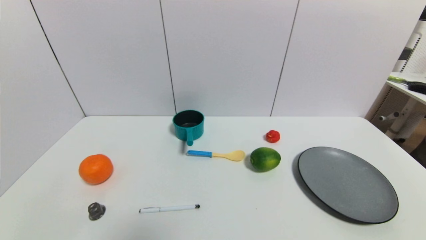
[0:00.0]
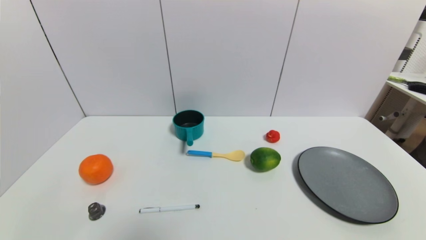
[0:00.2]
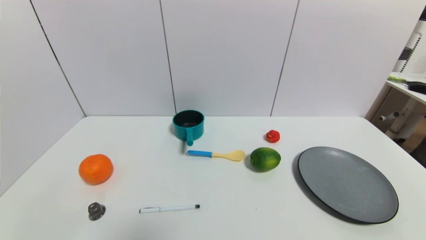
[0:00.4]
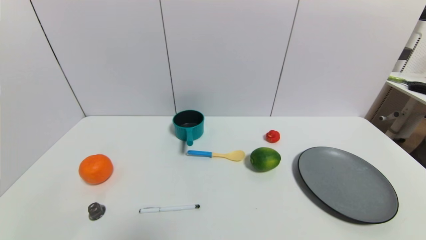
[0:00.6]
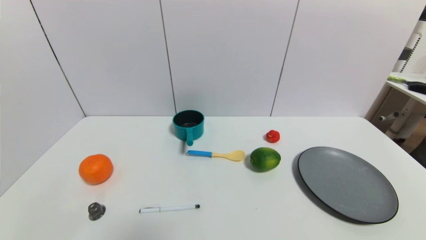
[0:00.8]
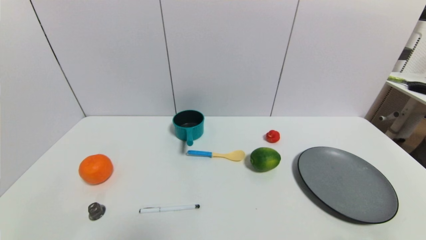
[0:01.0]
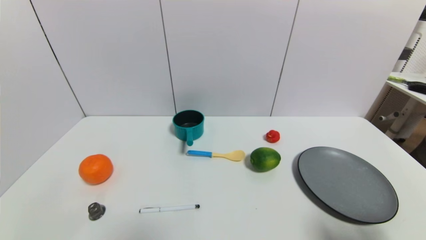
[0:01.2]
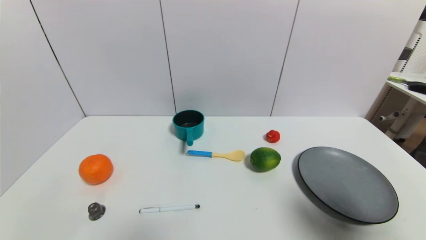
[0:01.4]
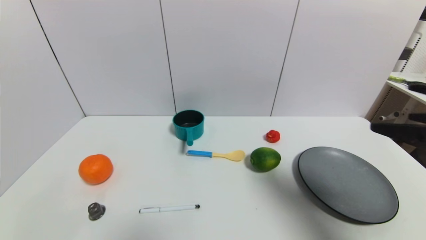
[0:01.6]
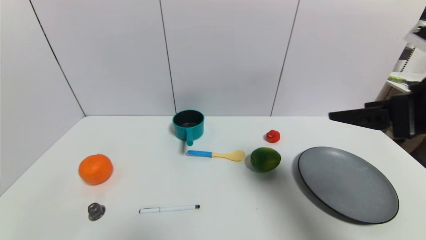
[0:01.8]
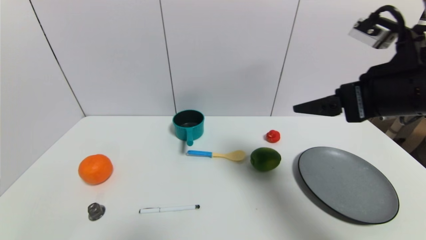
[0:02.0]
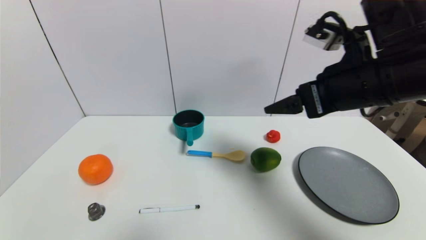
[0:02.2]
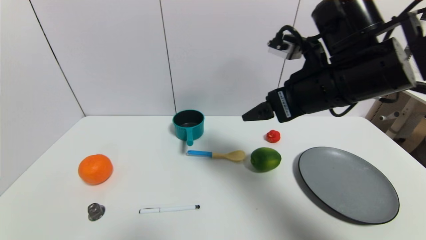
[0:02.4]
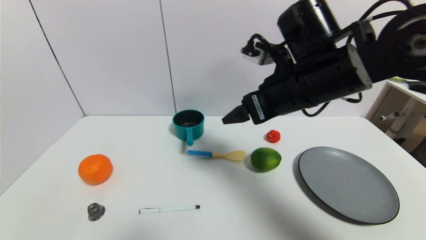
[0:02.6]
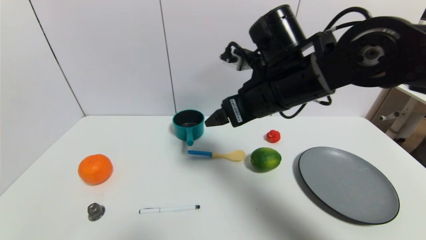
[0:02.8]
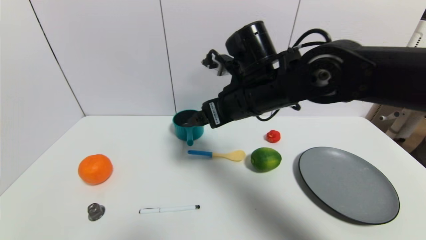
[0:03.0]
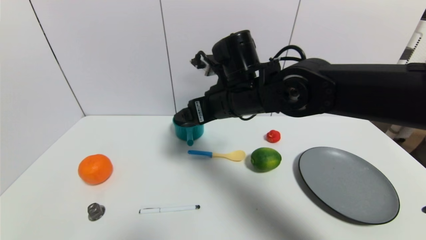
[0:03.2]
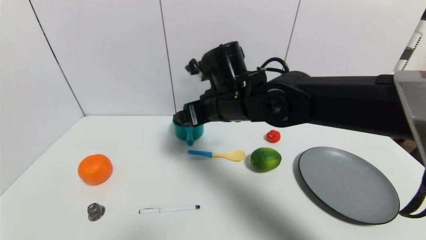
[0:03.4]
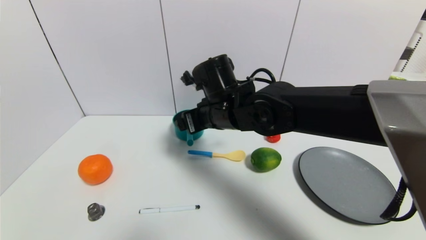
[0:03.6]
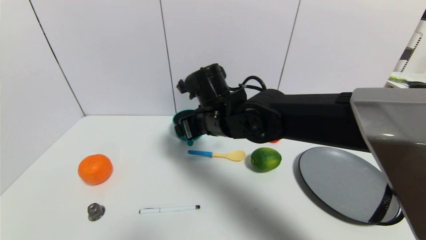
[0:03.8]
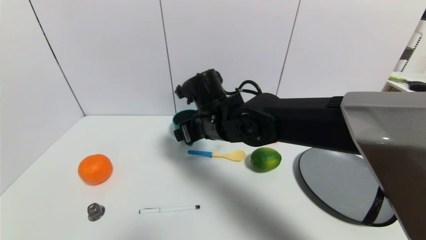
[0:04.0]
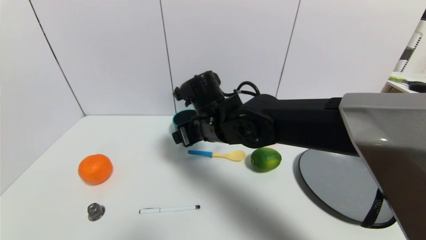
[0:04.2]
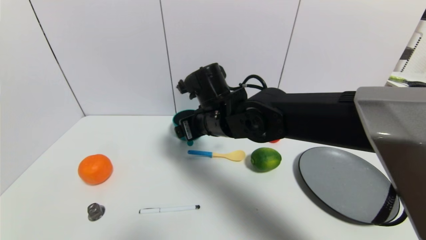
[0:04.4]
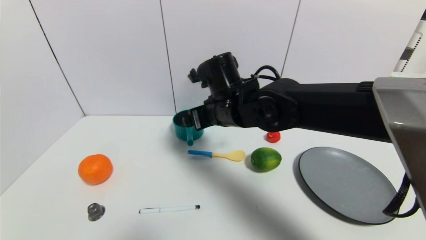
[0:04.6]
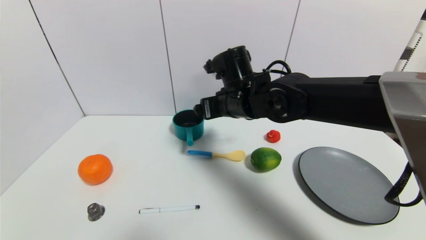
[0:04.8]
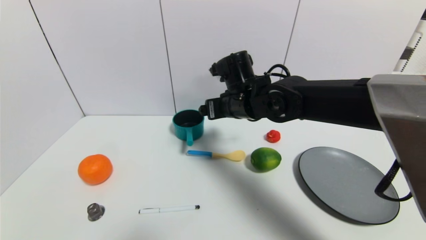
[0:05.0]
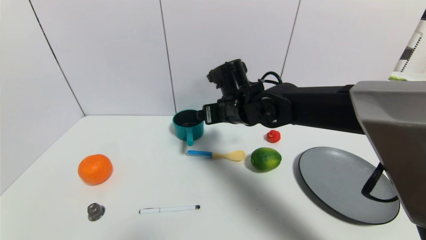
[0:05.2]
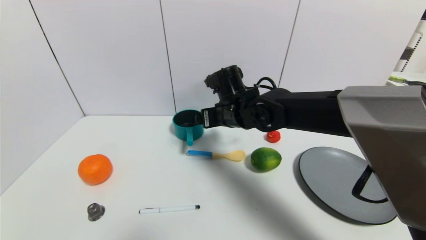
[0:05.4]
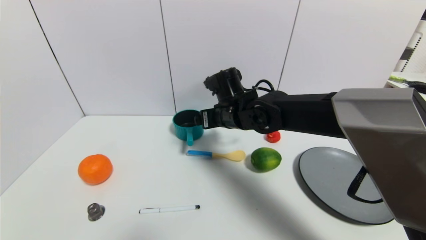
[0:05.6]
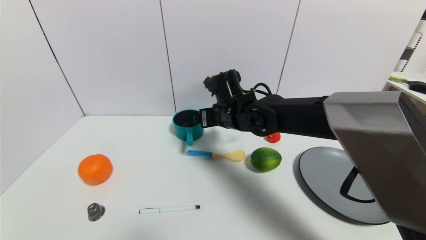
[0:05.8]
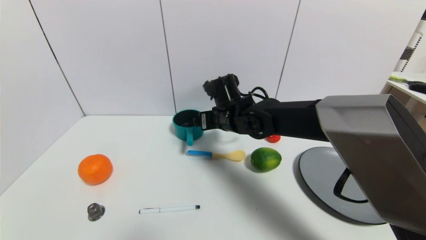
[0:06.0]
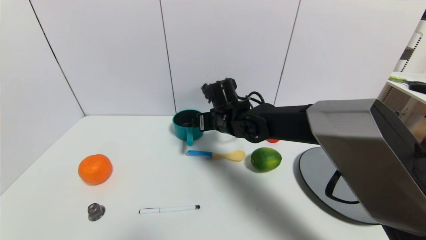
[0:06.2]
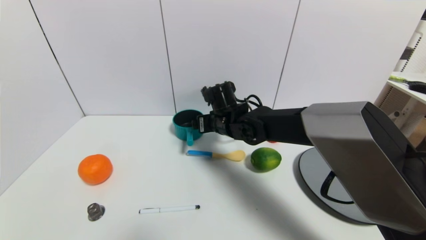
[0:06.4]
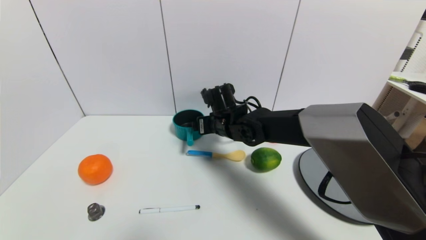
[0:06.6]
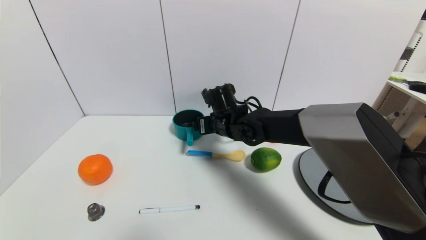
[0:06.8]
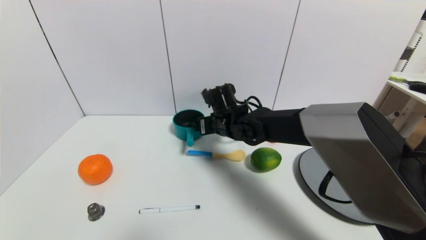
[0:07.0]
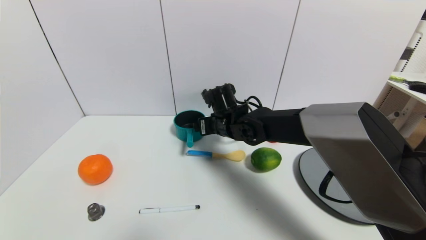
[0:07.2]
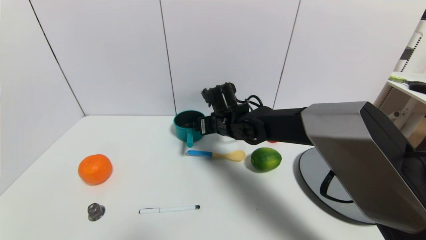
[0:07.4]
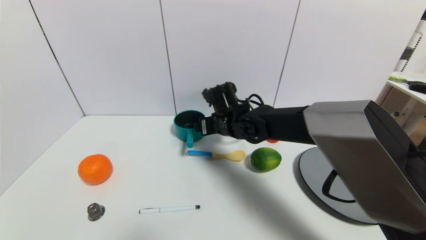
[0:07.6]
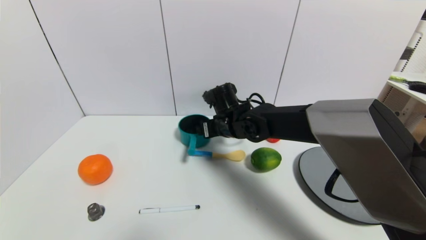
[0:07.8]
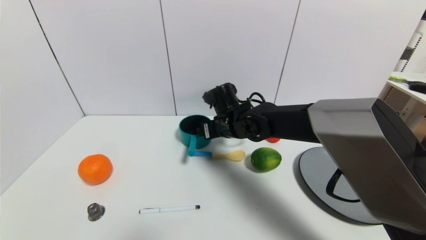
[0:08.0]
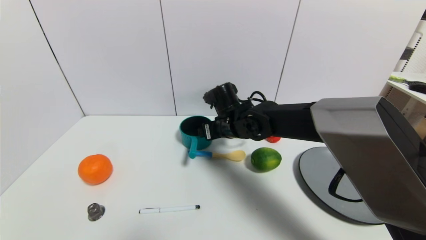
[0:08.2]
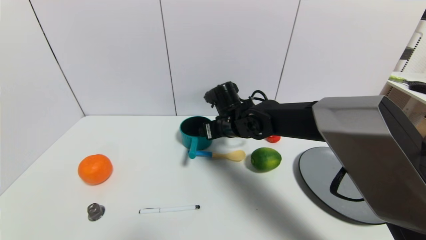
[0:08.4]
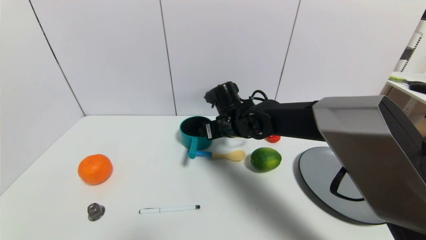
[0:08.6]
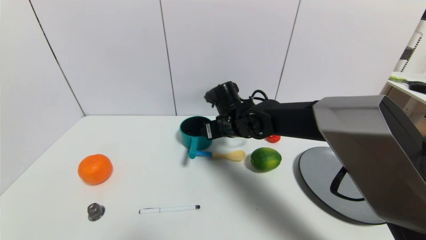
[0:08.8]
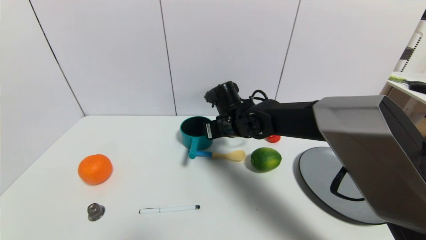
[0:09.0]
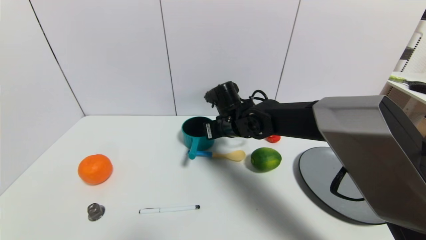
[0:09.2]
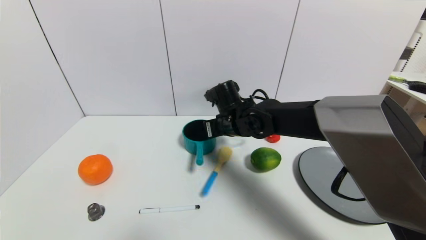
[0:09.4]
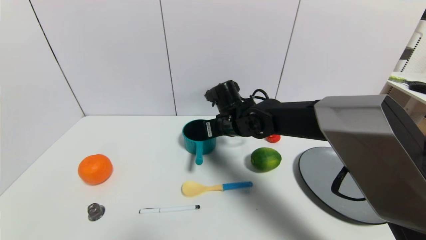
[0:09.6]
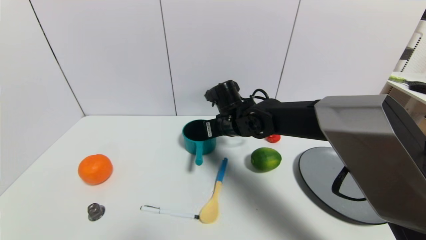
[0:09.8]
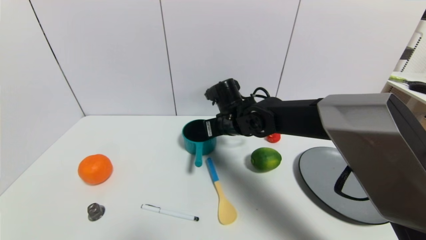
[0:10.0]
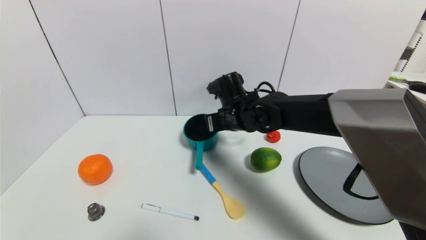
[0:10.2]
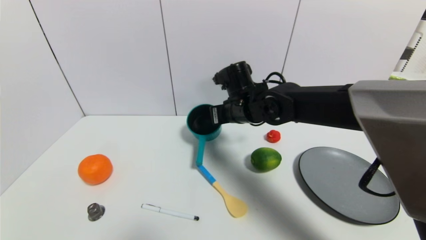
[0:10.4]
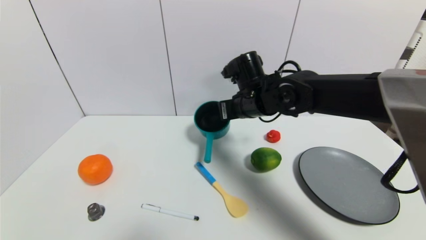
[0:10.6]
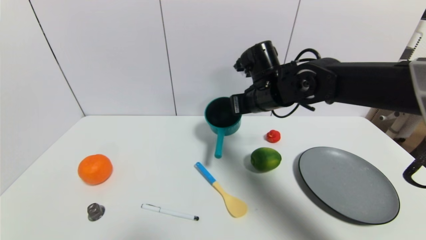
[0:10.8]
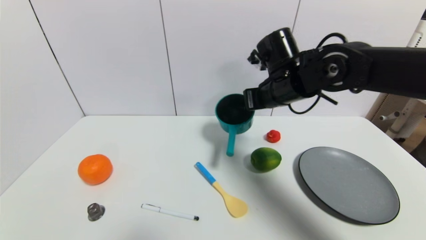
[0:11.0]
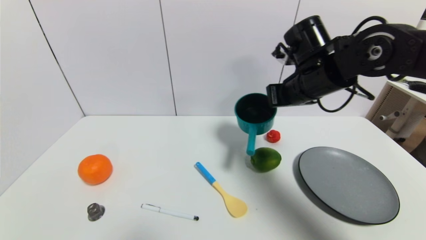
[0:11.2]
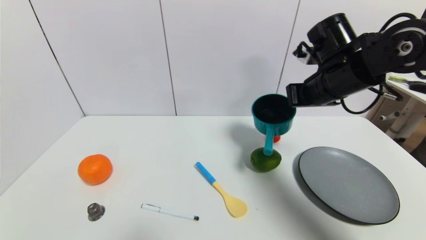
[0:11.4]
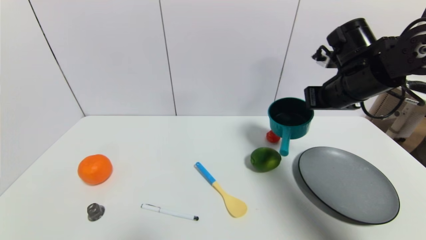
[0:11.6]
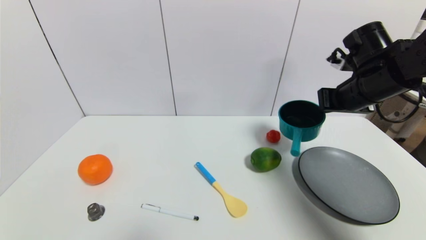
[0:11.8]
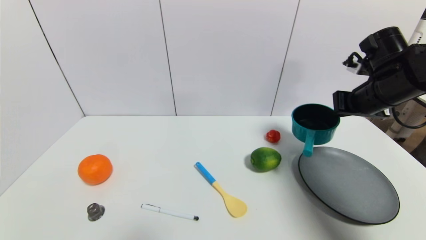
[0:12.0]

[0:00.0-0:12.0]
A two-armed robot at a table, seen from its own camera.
Task of the whole recording: use a gripper to pick the target object and place on the gray plate.
Step, 0:00.0 to 0:10.0: Grasp the blue pot with the right gripper.
0:00.0 to 0:01.6: The right gripper heads upward and forward, covering approximately 25 cm.
0:01.6 to 0:03.0: The right gripper goes approximately 30 cm to the left and forward.
0:03.0 to 0:04.4: The right gripper shifts roughly 5 cm to the left.
0:04.4 to 0:06.0: The right gripper is displaced forward by roughly 5 cm.
0:06.0 to 0:07.6: There are only small adjustments of the grippers.
0:07.6 to 0:09.0: The right gripper closes up.
0:09.0 to 0:10.4: The right gripper is displaced upward by roughly 5 cm, and closes its fingers.
0:10.4 to 0:12.0: The right gripper shifts some 25 cm to the right.

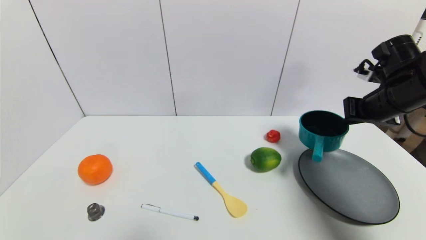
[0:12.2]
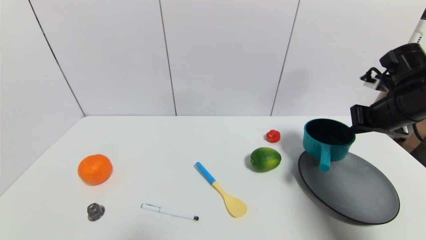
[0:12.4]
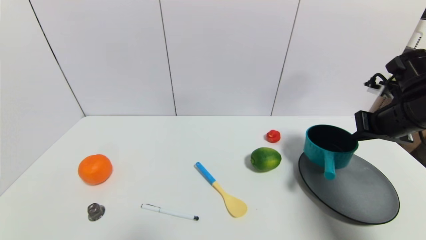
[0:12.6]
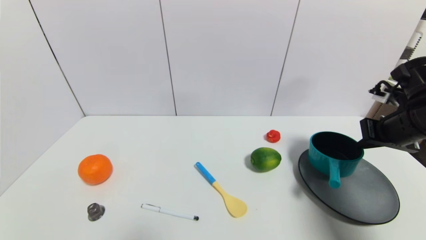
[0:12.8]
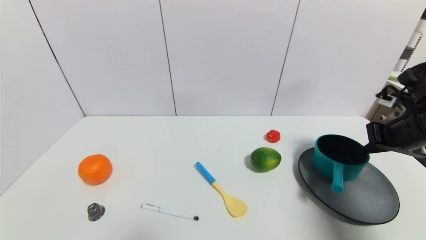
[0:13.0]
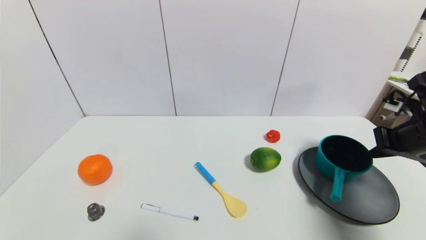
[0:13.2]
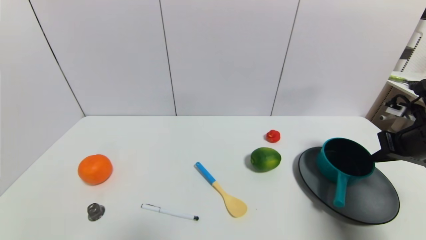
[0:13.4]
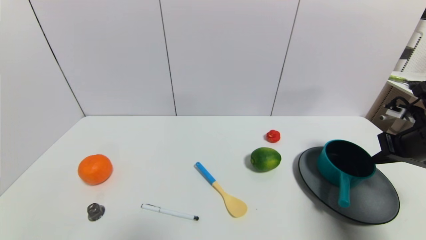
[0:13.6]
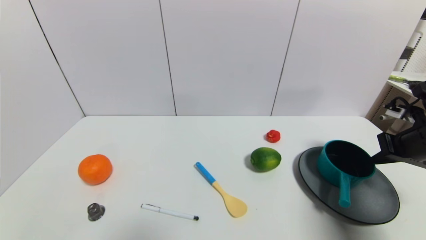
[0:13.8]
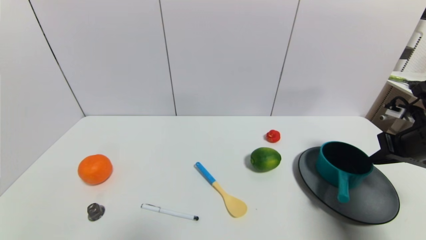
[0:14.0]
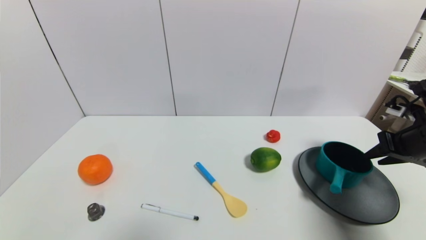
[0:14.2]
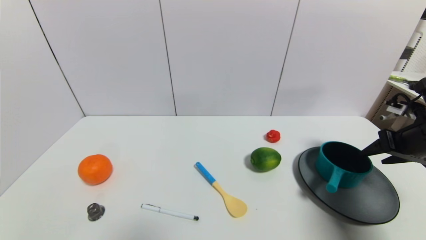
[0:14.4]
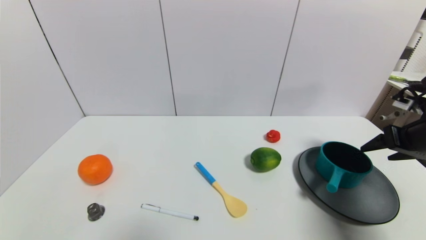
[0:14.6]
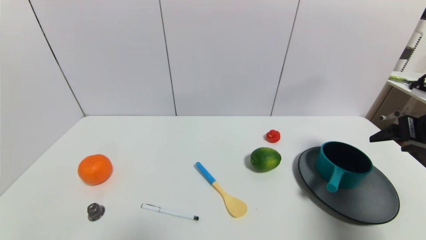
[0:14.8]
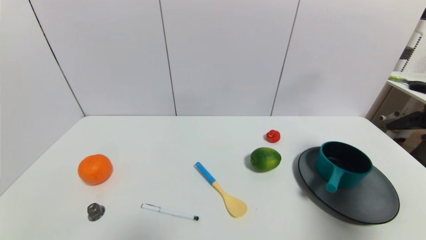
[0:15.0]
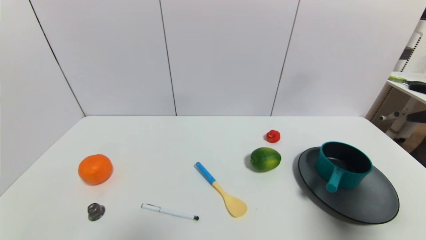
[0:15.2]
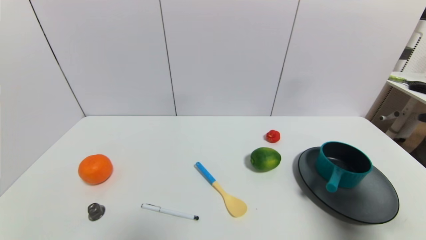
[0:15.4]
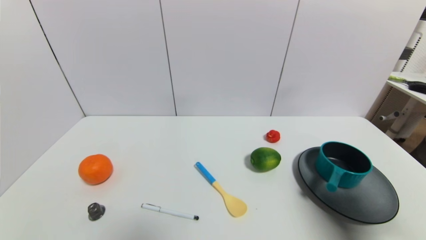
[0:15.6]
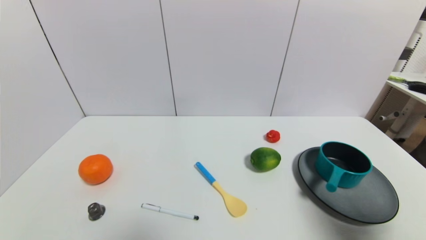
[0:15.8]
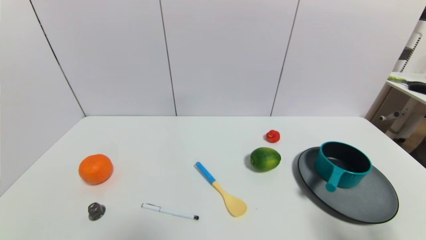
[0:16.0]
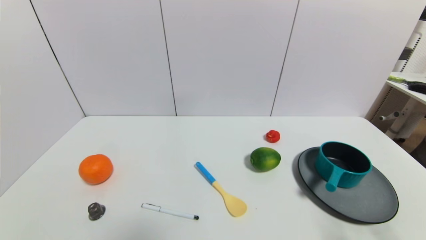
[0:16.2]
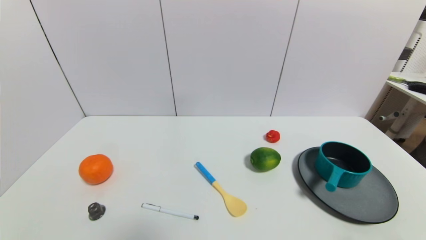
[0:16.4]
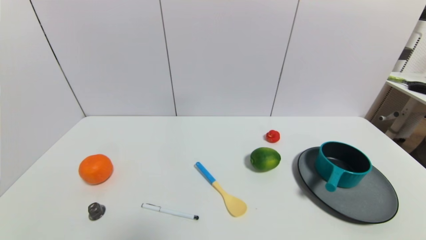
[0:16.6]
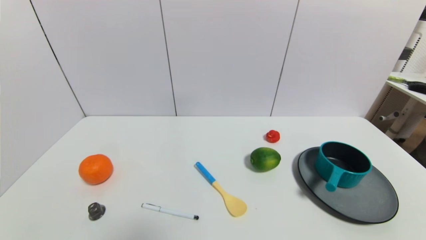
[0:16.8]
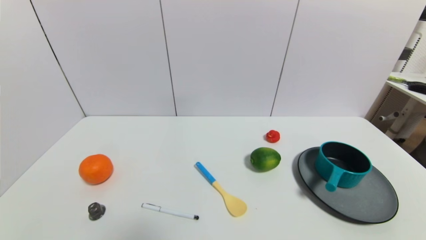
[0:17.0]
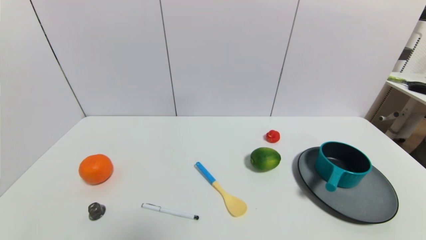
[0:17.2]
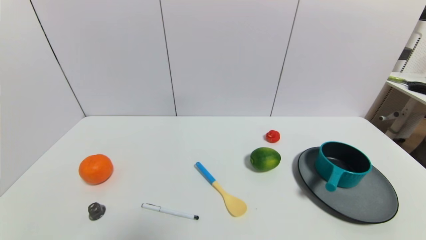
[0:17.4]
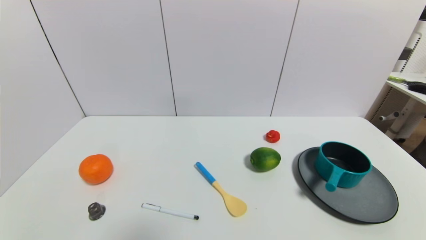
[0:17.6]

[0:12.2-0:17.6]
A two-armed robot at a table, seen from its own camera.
Task of the whole recording: use a gripper to pick the target object and place on the gray plate.
Step, 0:12.2 to 0:14.4: Place the blue pot on the gray plate with the right gripper.
0:12.2 to 0:13.6: The right gripper travels to the right by about 5 cm.
0:13.6 to 0:15.0: The right gripper heads upward and backward, covering approximately 10 cm, and opens up.
0:15.0 to 0:16.2: The right gripper shifts roughly 25 cm backward and downward.
